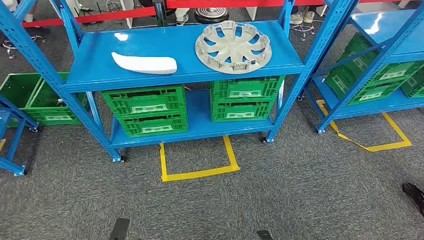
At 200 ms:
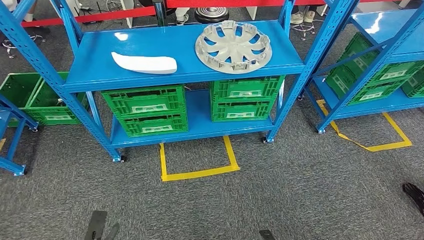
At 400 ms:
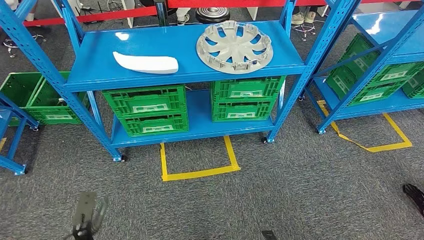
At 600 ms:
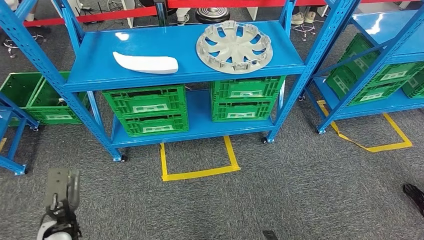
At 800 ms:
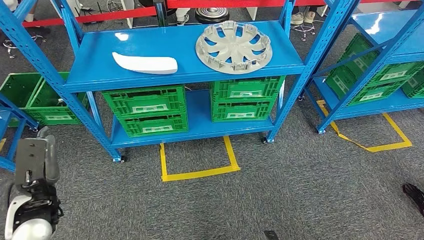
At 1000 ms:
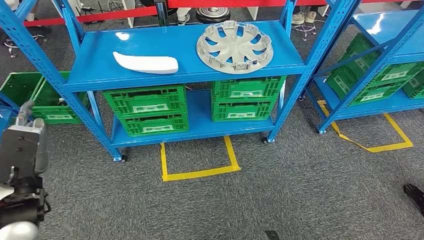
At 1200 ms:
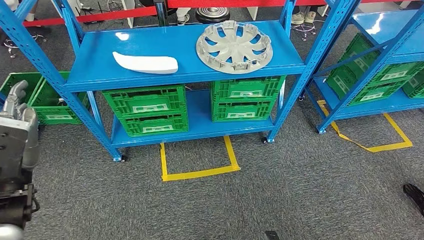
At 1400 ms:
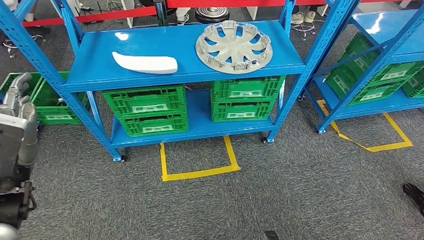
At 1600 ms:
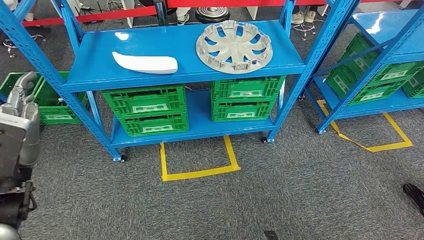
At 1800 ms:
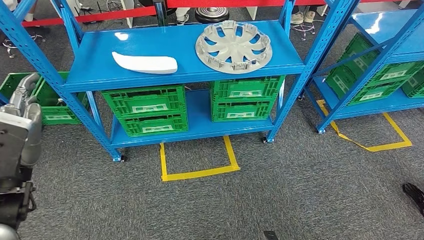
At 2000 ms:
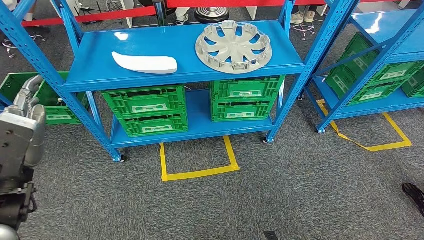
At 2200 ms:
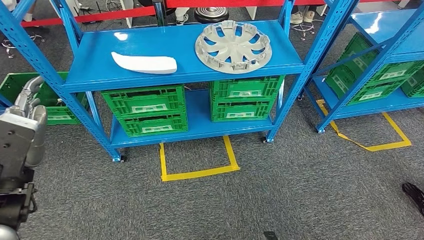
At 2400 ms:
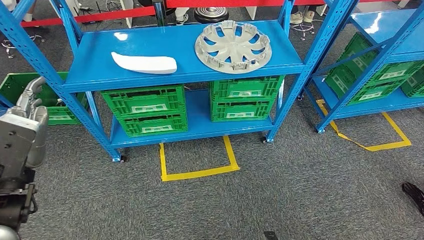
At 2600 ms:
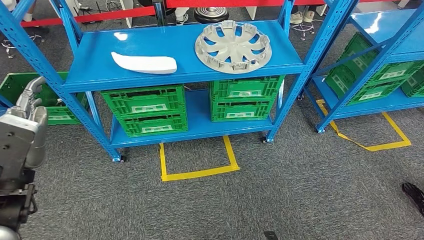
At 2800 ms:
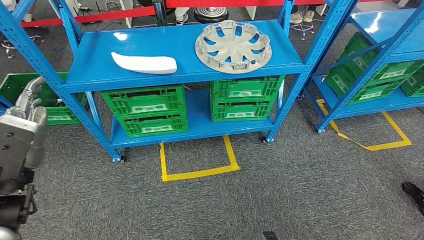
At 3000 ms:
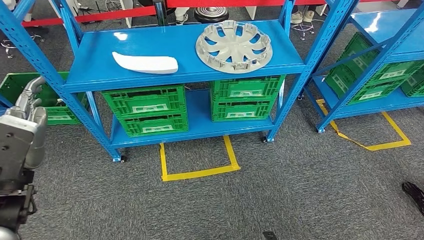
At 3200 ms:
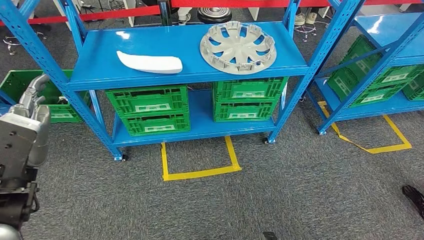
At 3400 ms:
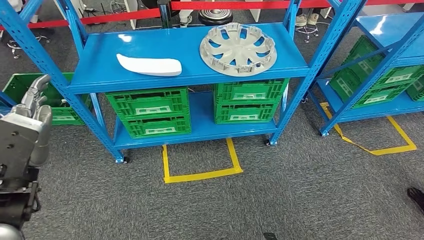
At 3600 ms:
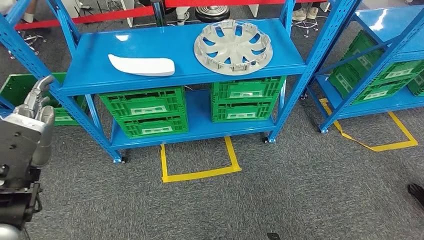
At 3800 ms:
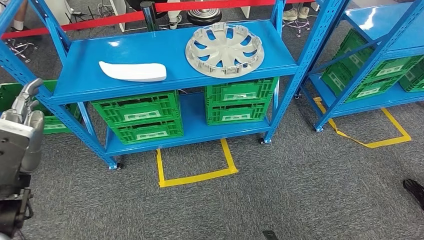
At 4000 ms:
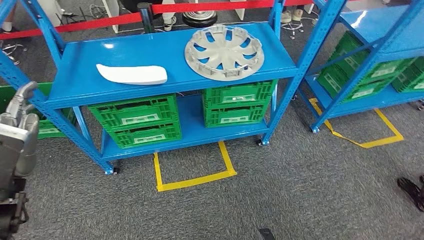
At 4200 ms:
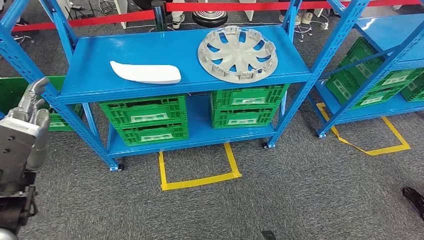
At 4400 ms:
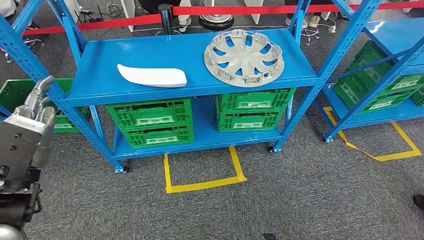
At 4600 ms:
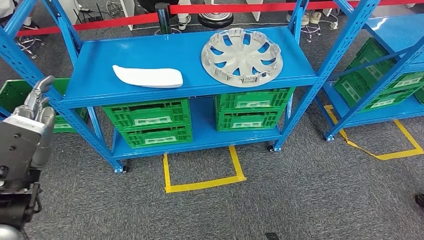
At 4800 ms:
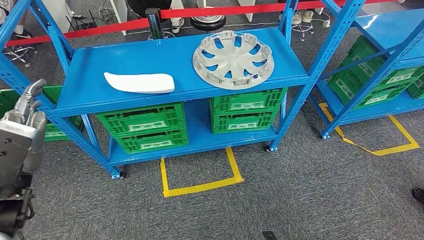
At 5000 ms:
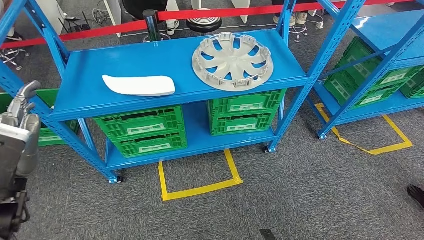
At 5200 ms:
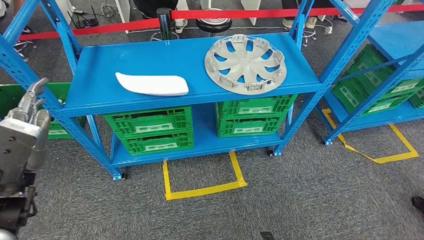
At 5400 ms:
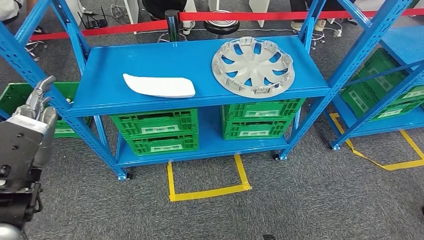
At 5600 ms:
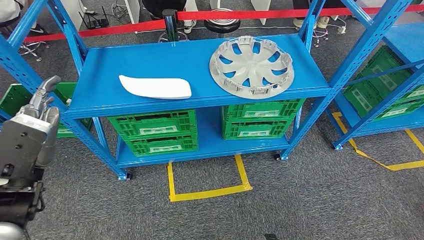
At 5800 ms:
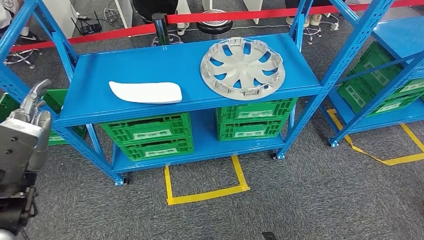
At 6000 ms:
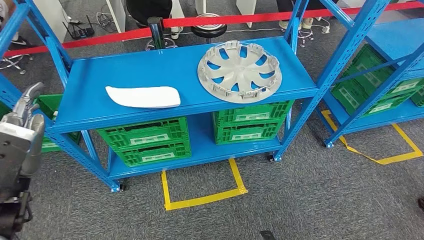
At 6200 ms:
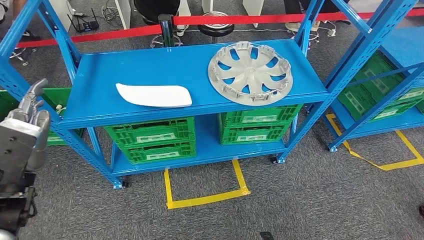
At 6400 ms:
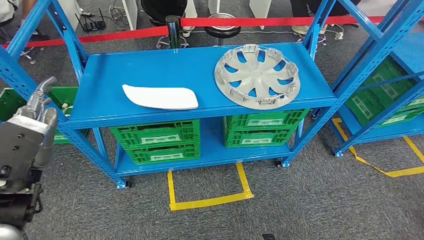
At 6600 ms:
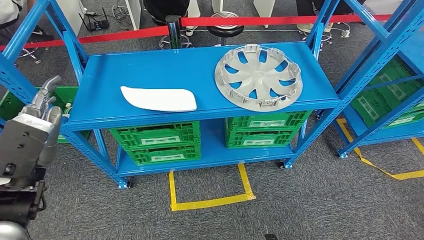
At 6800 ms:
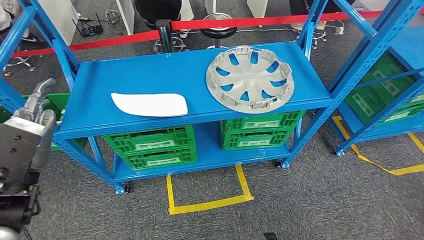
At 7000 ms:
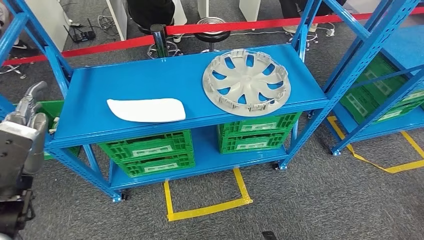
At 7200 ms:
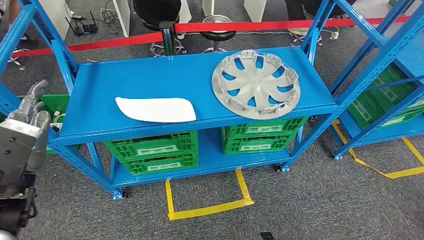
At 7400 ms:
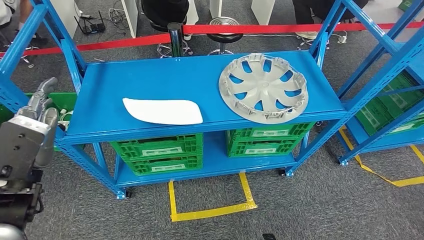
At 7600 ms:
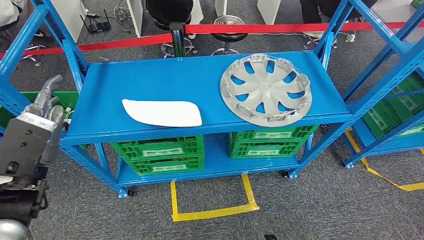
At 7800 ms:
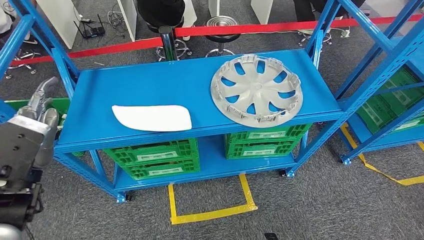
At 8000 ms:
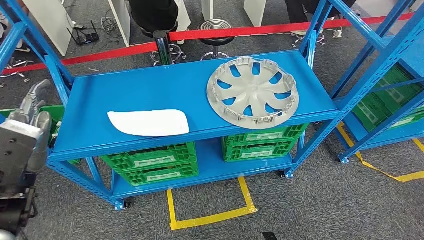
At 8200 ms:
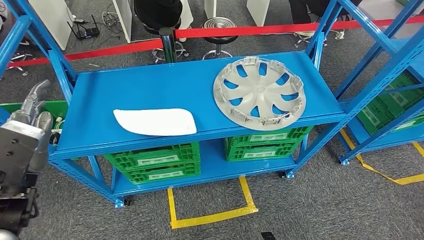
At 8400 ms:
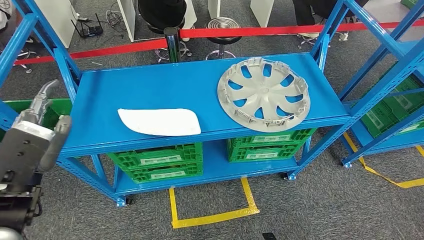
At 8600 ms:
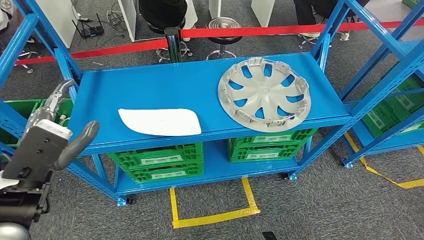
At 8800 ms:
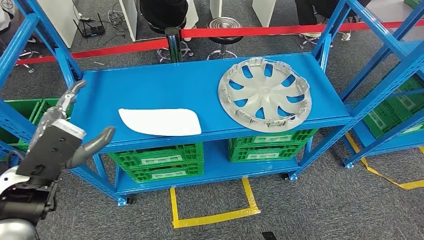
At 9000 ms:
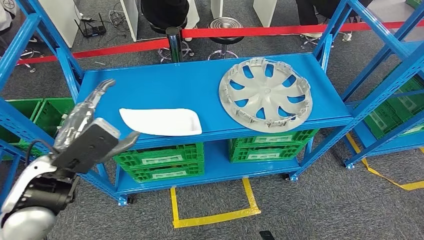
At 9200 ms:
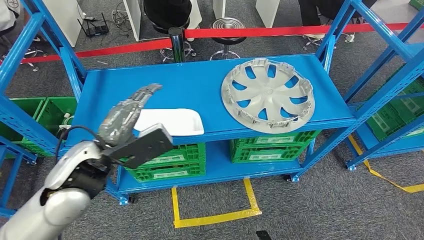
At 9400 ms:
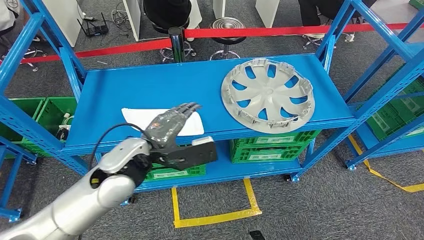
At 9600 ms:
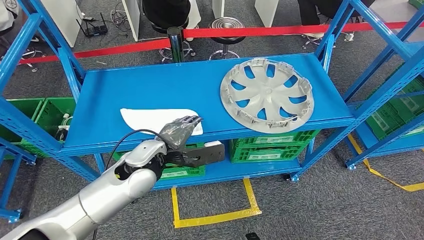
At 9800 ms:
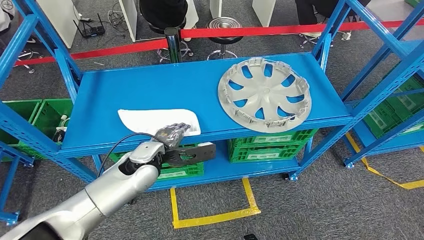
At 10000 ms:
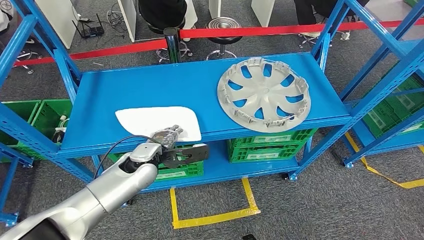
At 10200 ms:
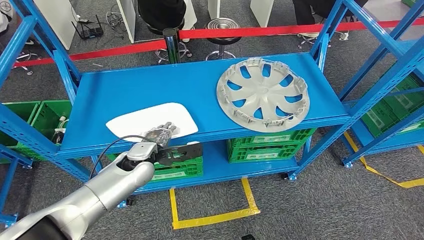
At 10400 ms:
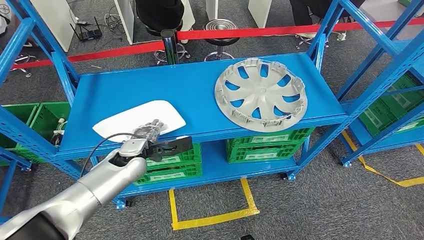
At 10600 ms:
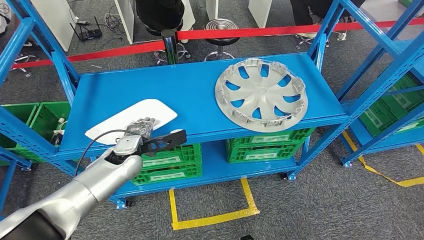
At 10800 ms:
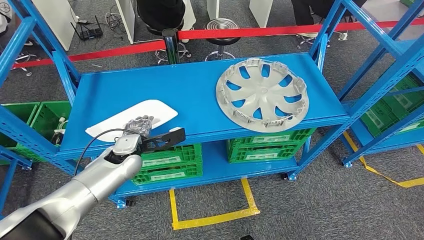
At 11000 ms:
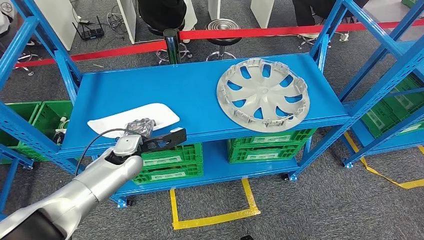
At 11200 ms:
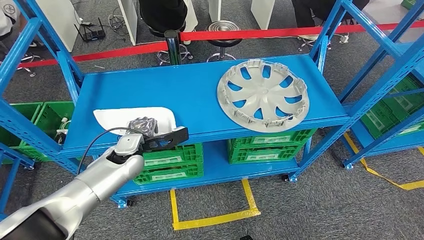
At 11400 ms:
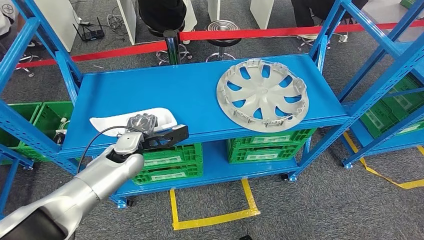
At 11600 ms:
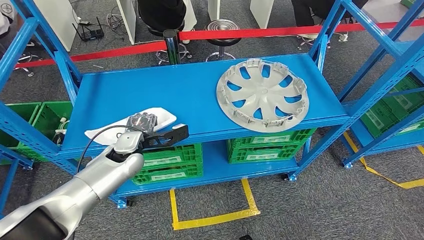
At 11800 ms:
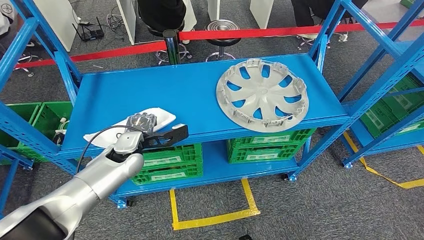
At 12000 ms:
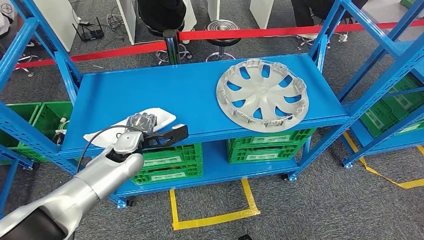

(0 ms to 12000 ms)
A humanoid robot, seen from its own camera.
1600 ms - 3000 ms: Both hands stay about where they are.
10400 ms - 12000 ms: The hands make only small movements.

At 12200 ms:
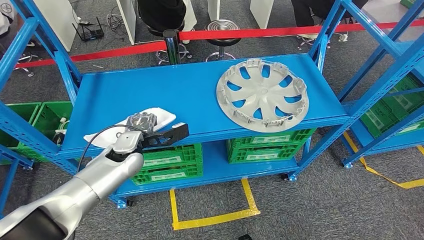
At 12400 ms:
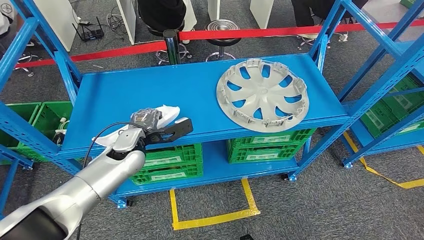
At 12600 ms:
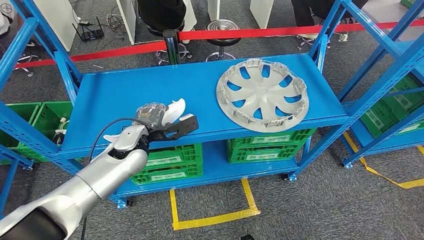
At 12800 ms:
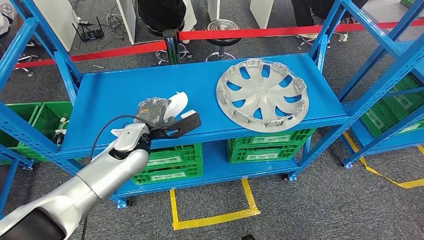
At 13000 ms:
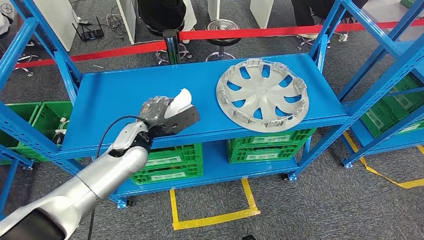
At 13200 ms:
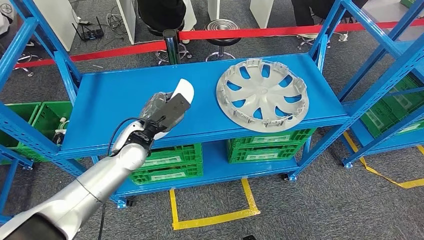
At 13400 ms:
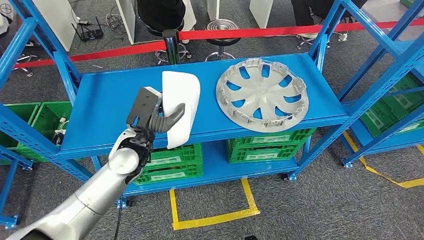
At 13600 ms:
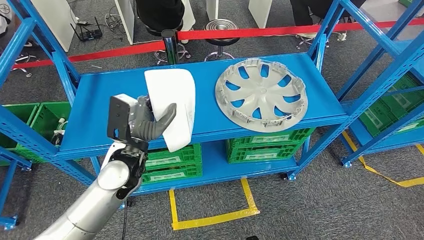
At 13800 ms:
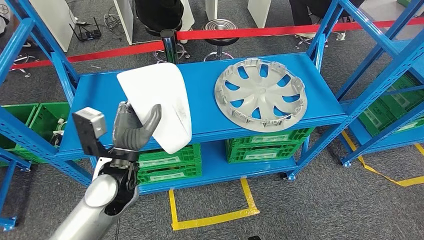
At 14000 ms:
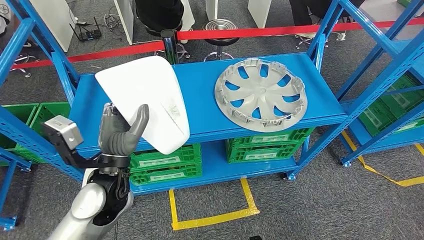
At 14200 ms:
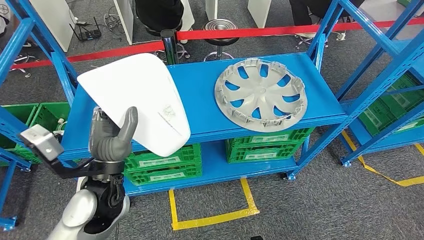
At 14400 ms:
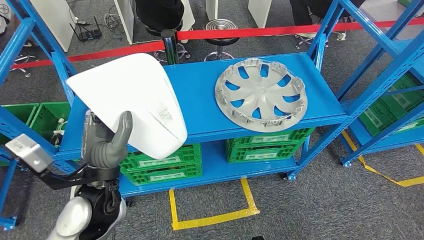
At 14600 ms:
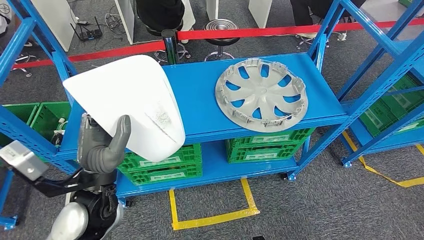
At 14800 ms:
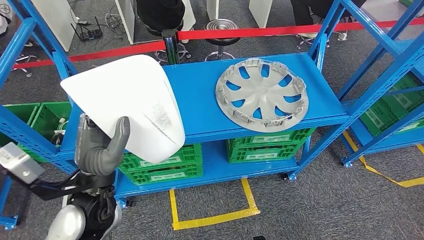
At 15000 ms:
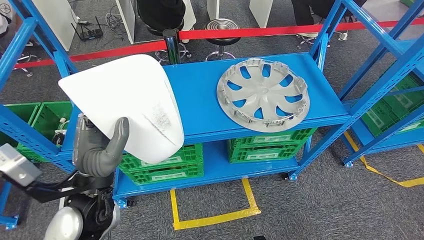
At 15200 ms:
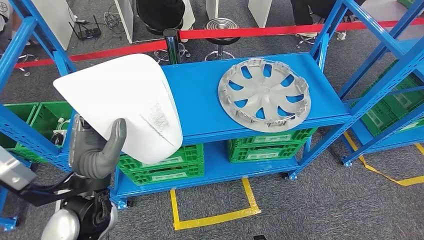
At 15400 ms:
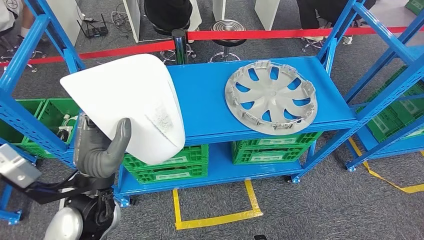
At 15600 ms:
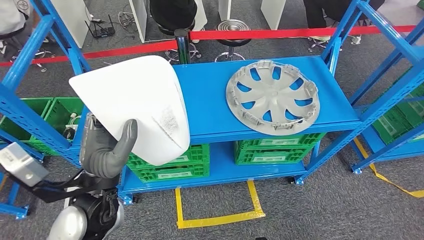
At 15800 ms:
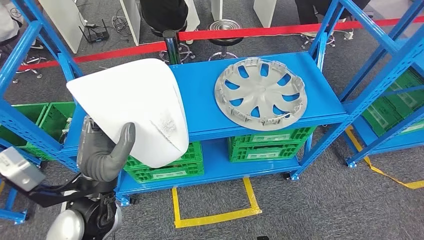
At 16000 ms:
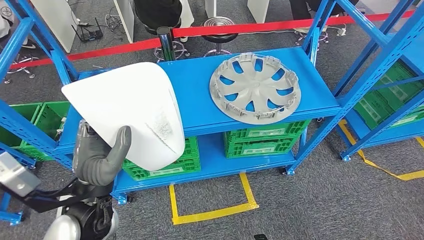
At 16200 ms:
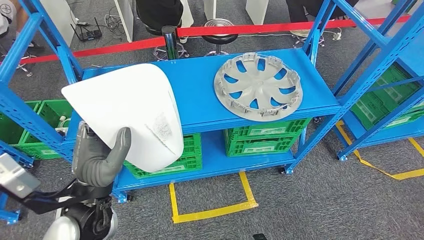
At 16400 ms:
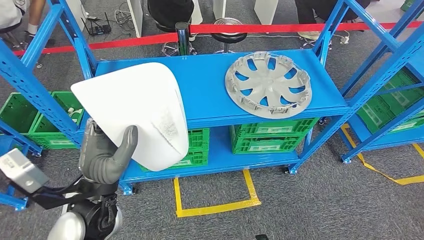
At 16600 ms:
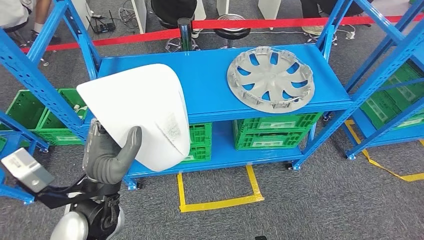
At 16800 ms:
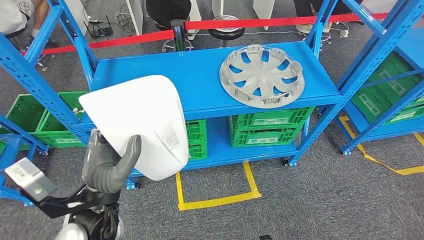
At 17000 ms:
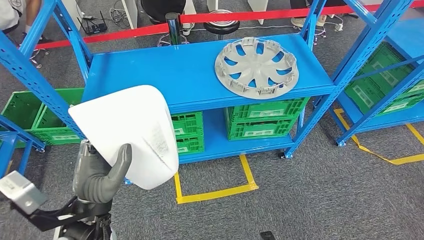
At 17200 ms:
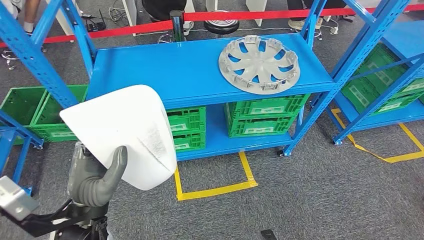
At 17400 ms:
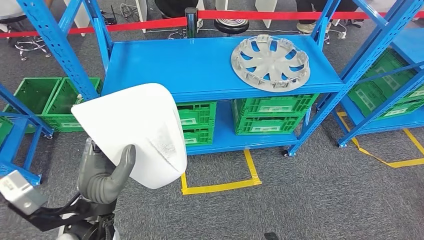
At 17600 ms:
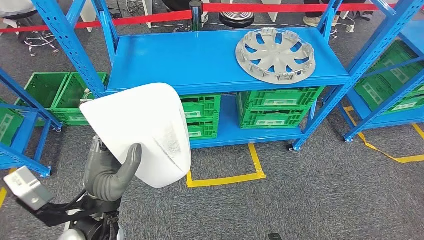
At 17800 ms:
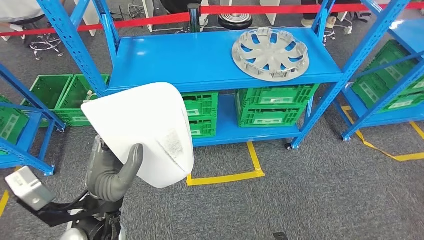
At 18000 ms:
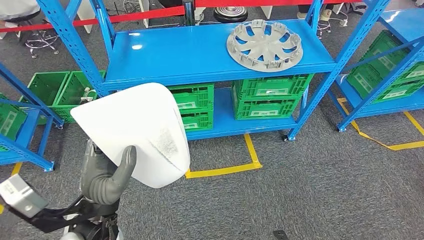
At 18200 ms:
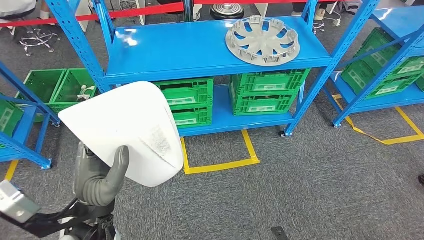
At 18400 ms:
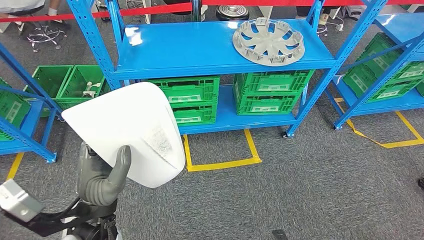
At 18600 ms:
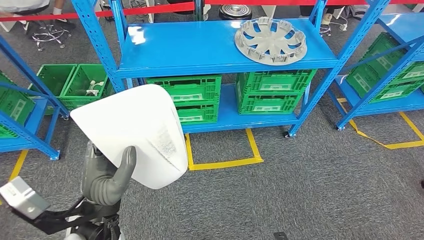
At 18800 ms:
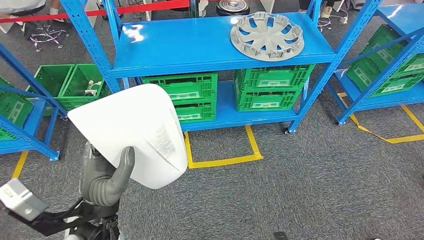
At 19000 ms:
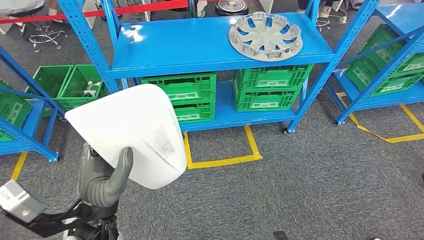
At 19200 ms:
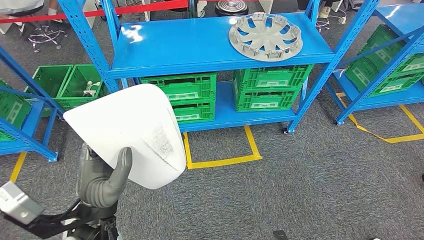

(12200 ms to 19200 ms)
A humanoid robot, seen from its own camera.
Step, 12200 ms - 15600 ms: Pick up the small component from the shelf.
12200 ms - 13600 ms: The left hand goes approximately 5 cm backward.
